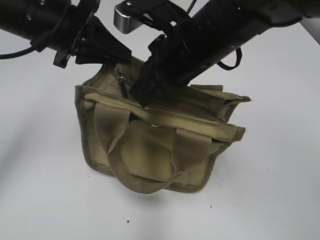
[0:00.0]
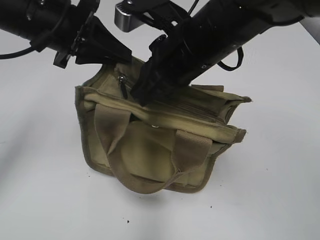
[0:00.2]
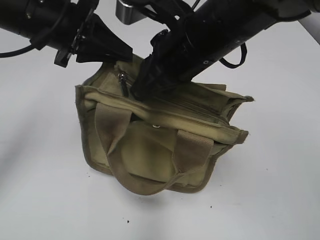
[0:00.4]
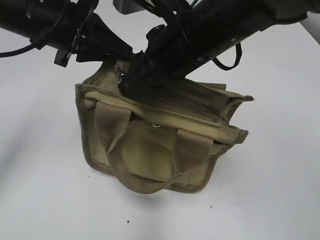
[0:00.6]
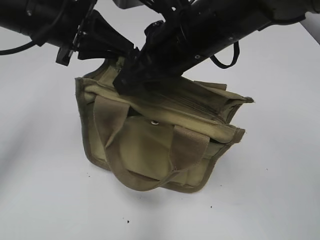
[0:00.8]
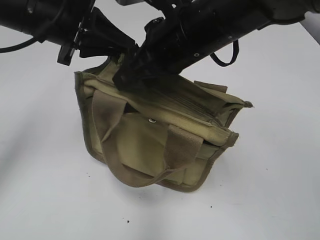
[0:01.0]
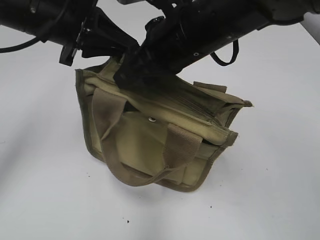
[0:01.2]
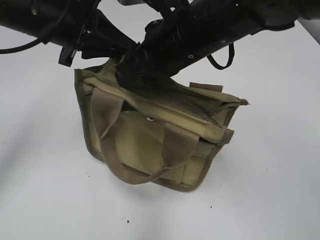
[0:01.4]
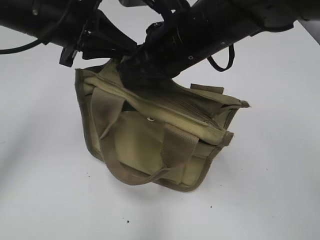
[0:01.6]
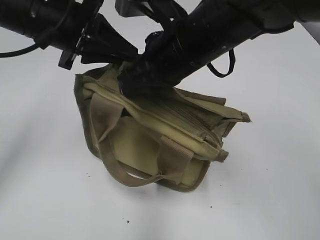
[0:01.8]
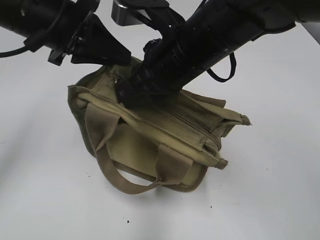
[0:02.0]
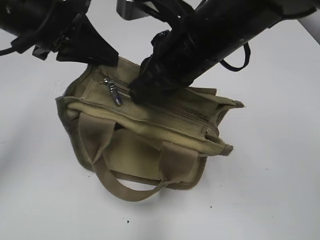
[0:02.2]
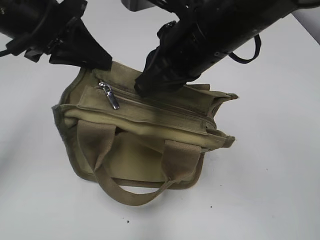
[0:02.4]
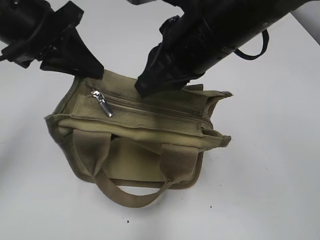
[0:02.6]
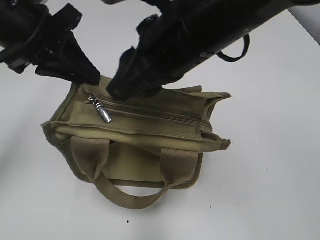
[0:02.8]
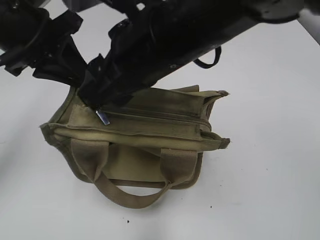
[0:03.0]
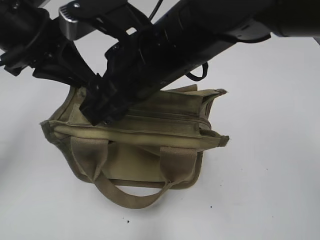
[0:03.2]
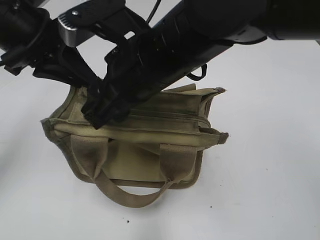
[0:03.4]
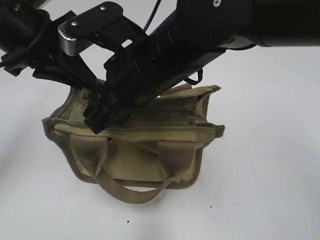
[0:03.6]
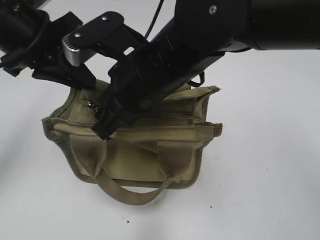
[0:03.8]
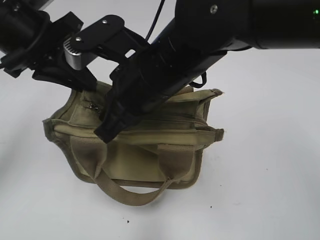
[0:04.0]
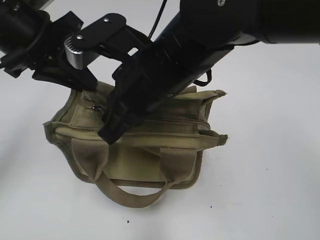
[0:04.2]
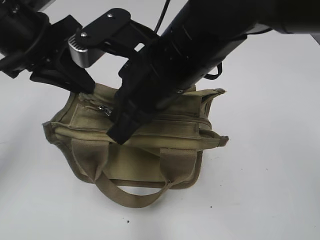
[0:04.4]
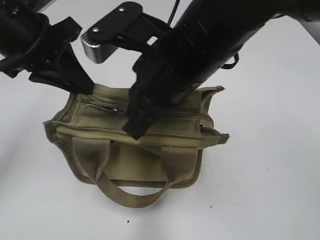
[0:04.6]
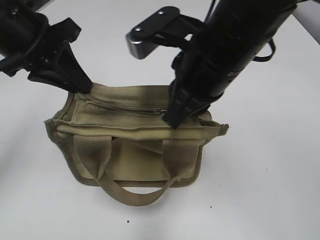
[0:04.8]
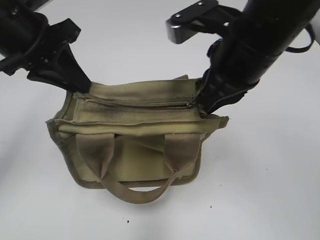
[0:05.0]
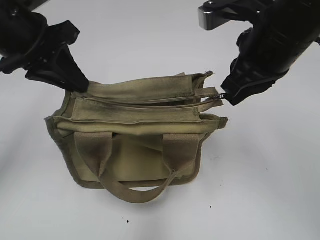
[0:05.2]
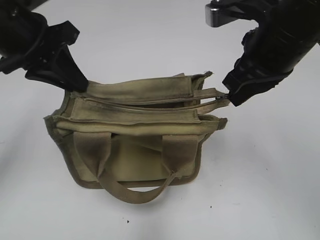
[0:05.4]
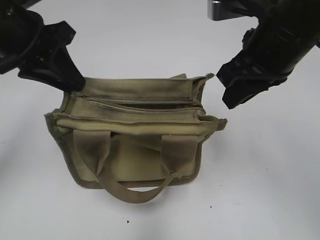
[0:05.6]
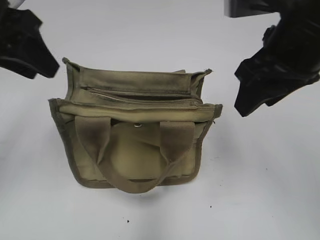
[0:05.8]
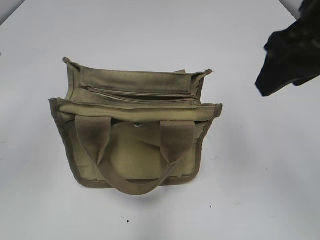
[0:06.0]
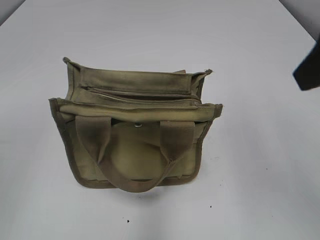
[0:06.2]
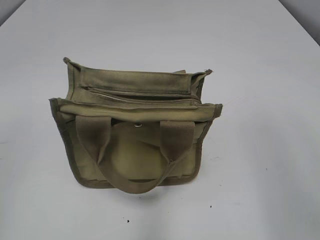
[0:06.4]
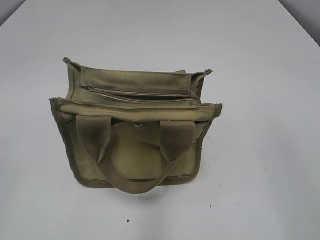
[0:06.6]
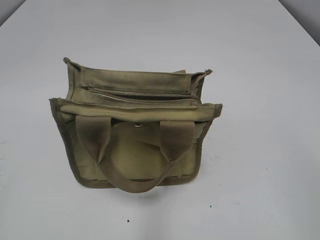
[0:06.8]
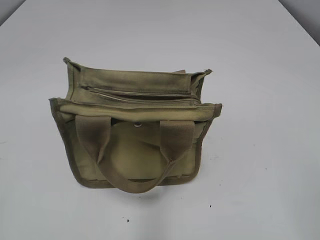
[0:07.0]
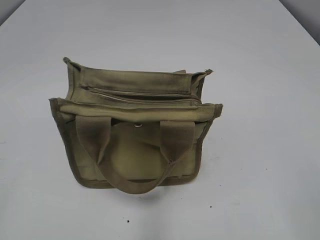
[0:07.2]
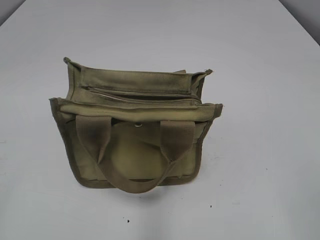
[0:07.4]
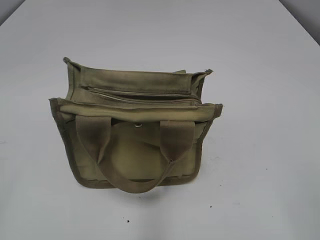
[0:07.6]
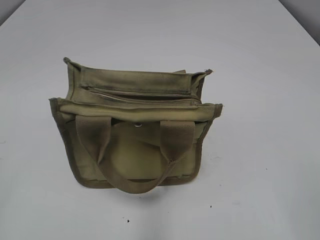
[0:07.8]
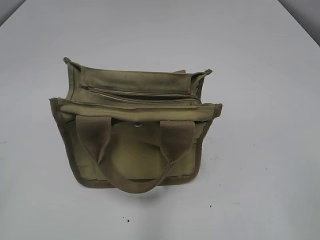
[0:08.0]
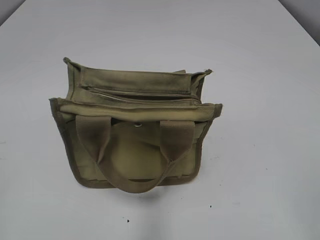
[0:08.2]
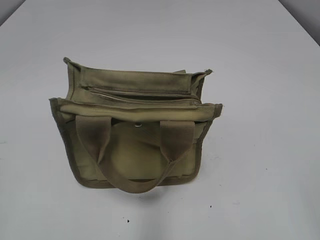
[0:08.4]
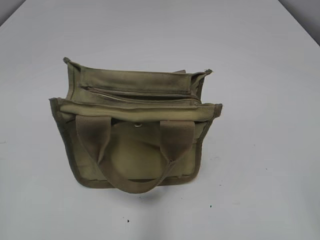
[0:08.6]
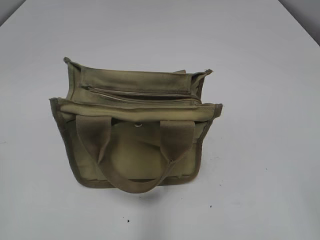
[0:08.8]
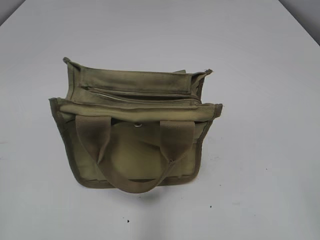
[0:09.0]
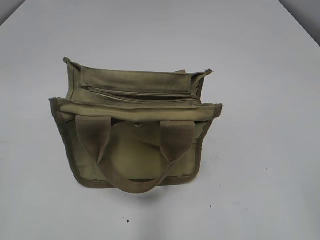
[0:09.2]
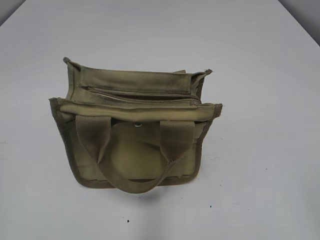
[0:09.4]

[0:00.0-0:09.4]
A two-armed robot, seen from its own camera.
Step, 0:00.0 to 0:05.4: Pull open the zipper with your right hand.
Step, 0:05.6 to 0:05.8: Hold the bag with your left hand.
0:00.0 to 0:01.6: The right gripper opens and closes again.
0:01.6 to 0:03.2: The right gripper ends up some 5 cm from where it was, and opens up.
0:03.2 to 0:04.8: The right gripper travels to the right by some 5 cm, and closes.
0:04.8 to 0:06.2: The left gripper travels backward, upward and to the left by roughly 15 cm, and opens its fingers, while the right gripper is displaced to the right and upward by roughly 15 cm, and opens.
0:06.2 to 0:07.8: The right gripper is displaced backward, downward and to the right by about 25 cm.
